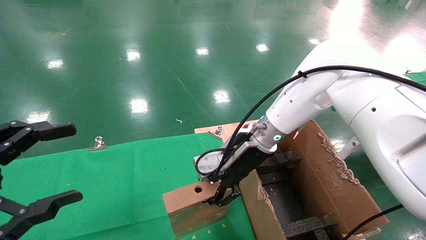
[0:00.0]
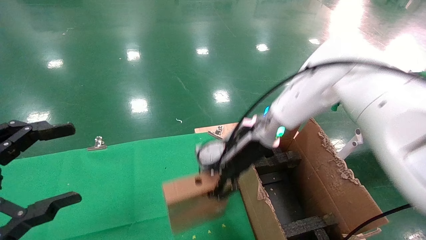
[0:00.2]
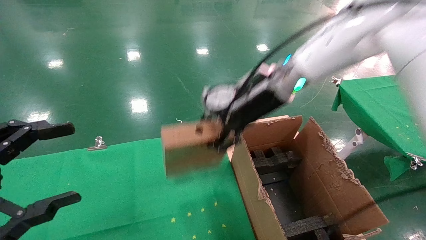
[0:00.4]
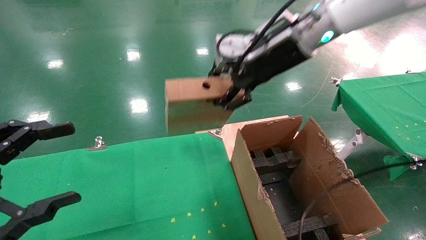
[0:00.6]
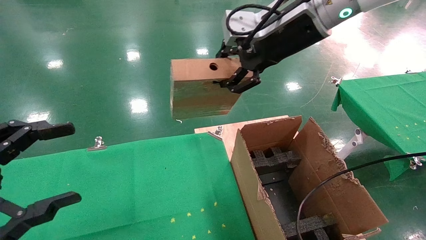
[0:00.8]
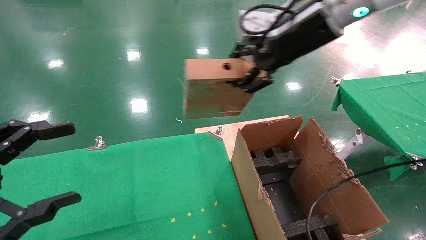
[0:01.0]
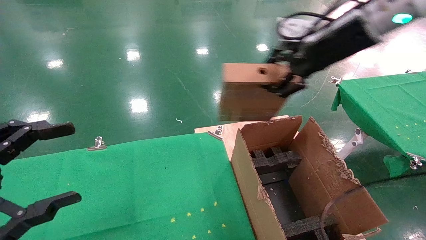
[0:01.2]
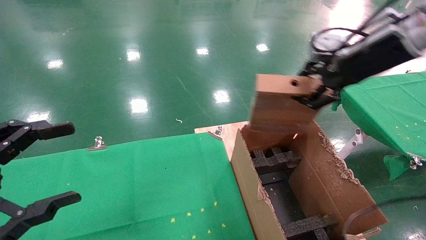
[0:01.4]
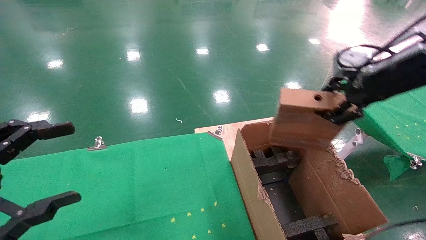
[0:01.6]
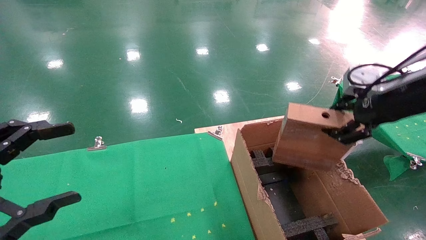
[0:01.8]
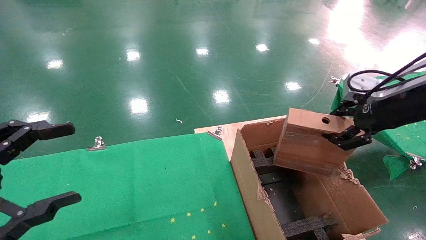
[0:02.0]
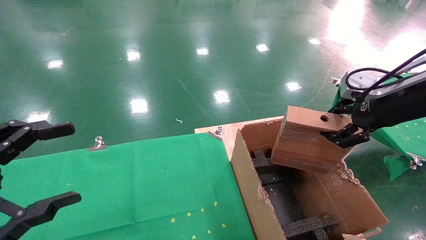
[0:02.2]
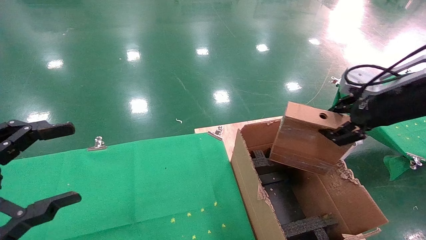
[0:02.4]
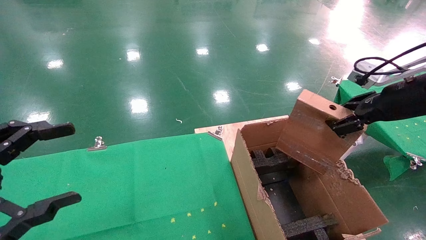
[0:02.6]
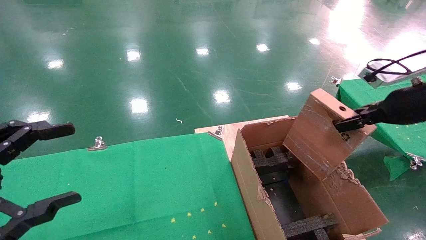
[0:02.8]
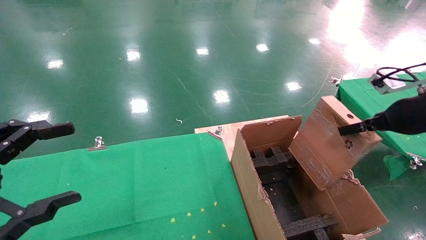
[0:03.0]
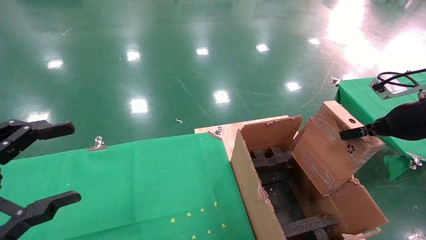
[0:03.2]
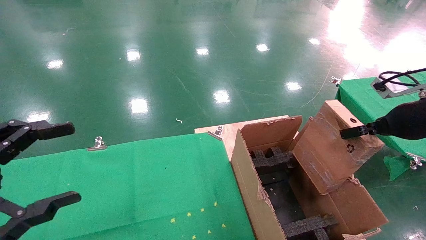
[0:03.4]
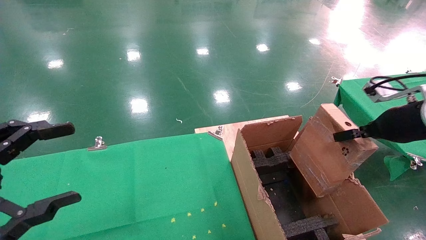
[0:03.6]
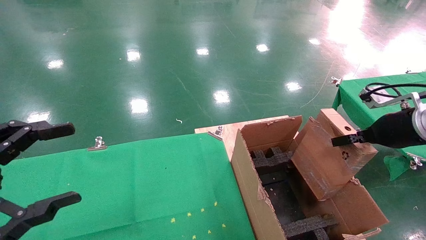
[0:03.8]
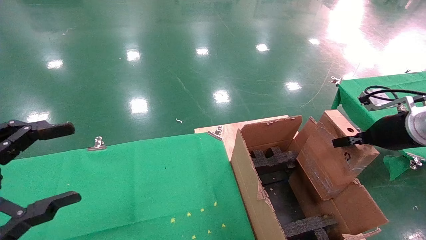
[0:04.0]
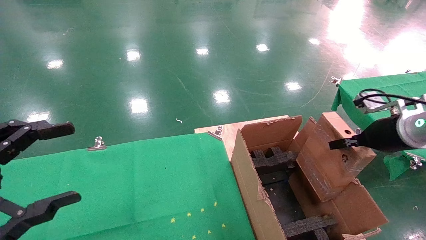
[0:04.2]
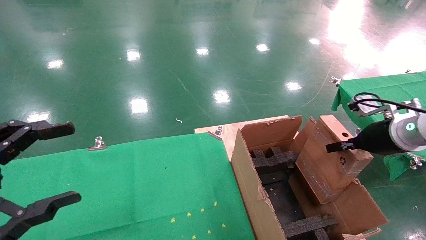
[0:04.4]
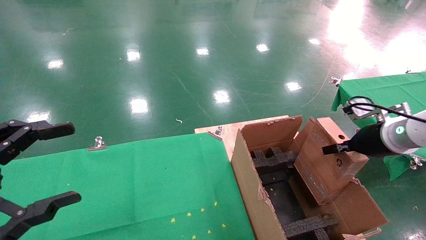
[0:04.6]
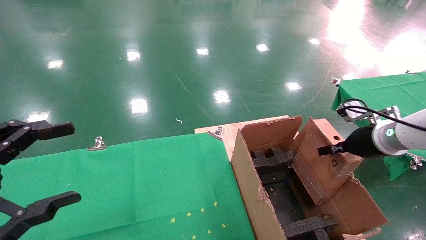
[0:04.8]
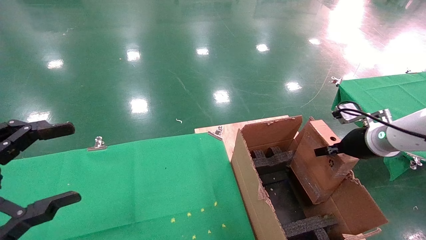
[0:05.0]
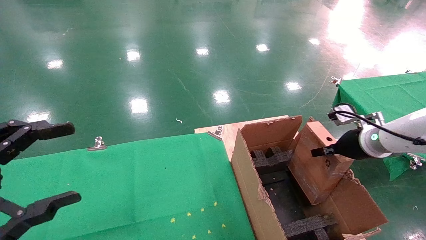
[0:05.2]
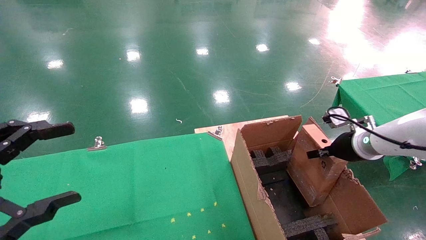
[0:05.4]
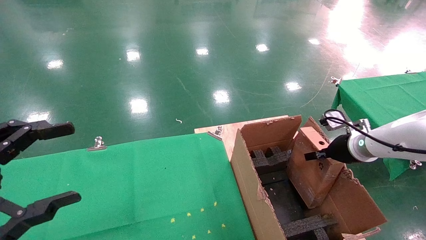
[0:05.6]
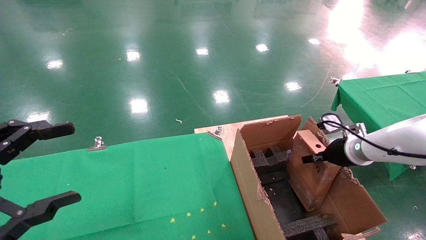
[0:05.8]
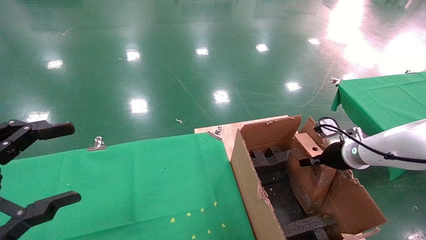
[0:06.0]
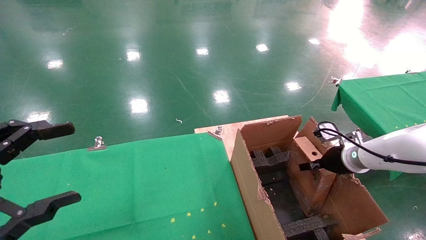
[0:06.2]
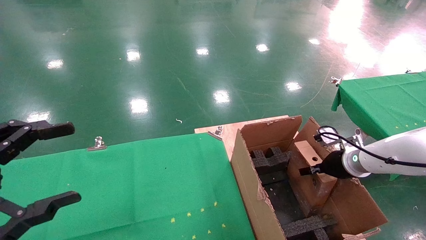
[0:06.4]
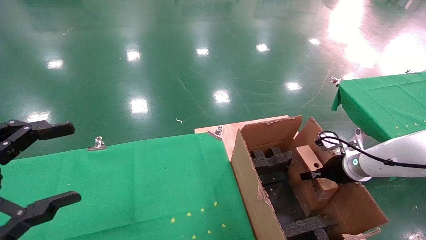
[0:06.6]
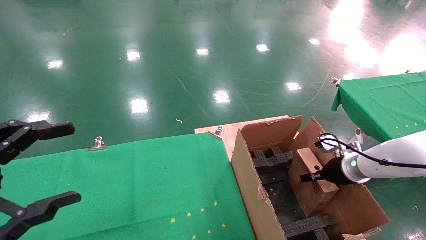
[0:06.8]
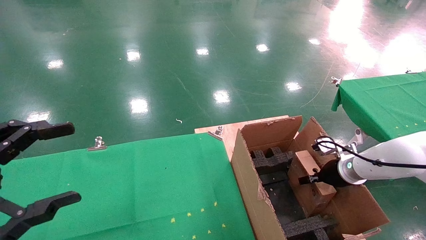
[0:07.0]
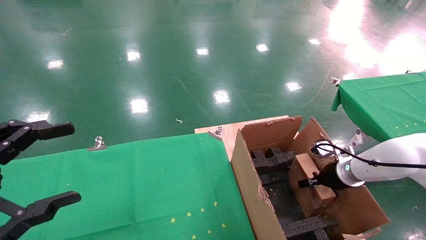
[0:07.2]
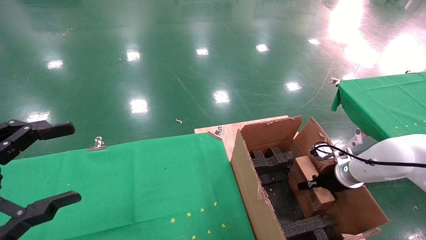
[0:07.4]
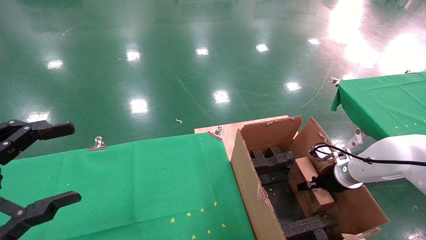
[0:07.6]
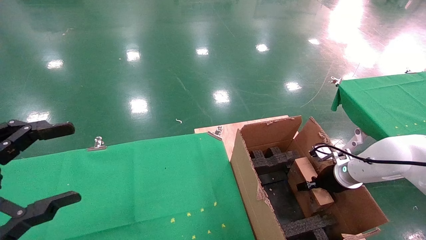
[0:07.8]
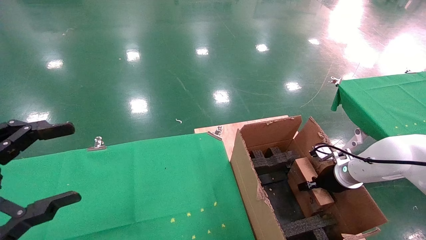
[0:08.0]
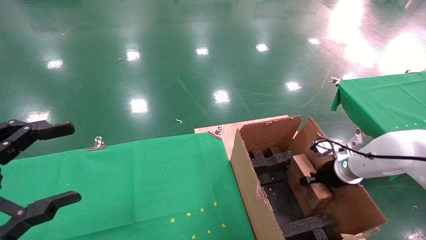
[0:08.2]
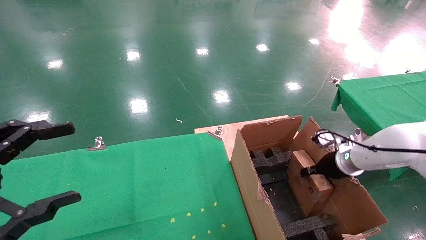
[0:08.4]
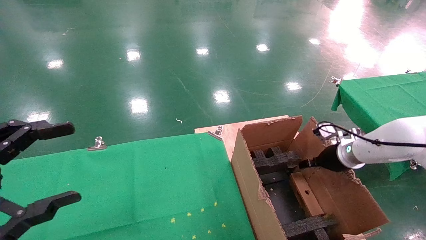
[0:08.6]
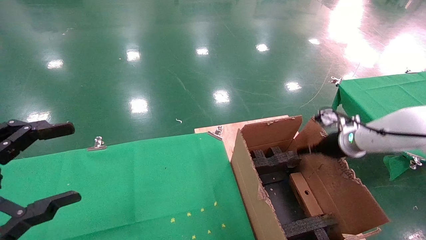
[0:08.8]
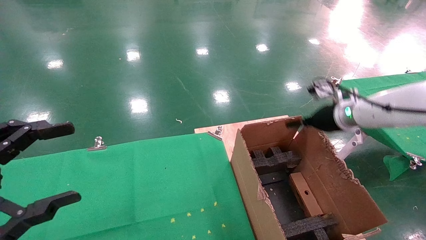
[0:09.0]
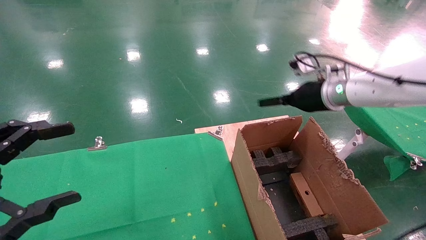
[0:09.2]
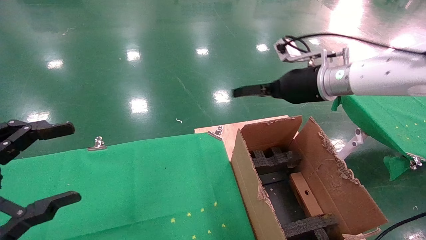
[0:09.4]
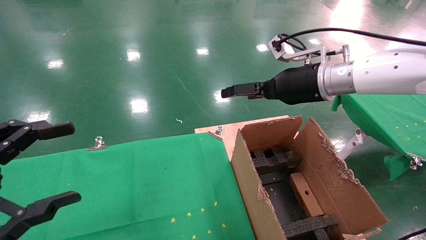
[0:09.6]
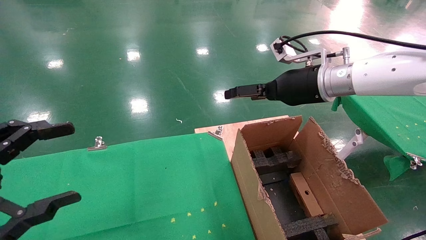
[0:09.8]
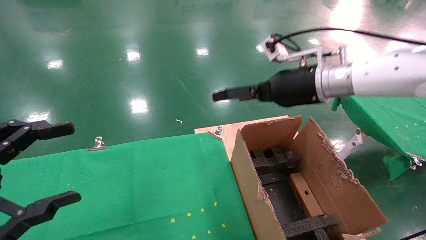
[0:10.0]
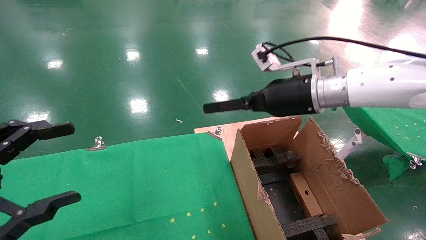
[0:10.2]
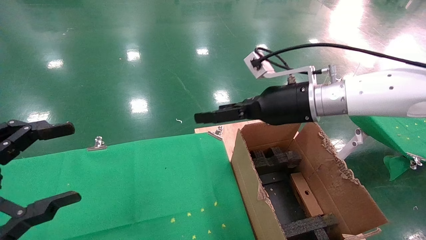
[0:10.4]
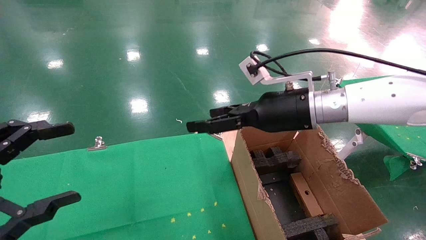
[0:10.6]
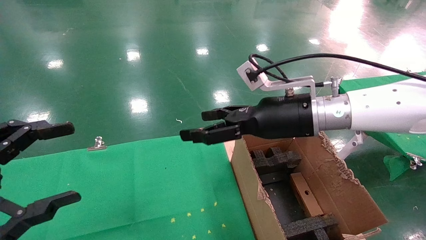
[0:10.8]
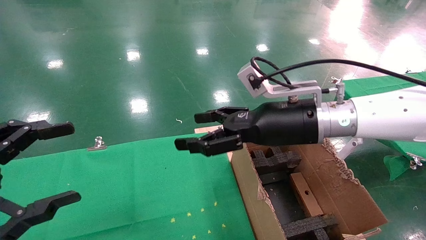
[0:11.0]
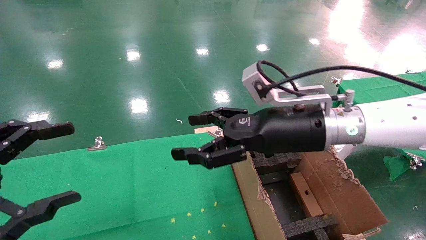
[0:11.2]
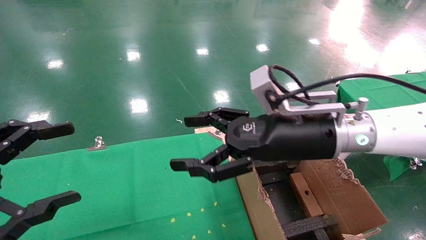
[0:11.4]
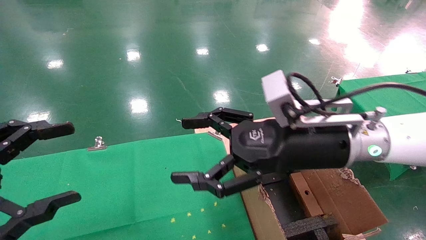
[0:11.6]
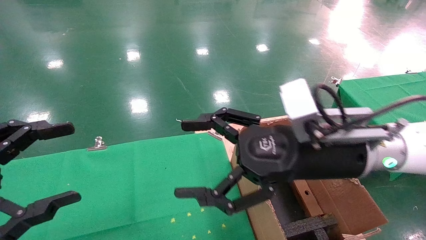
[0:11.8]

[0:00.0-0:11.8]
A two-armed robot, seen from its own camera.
Task of the whole recording: using a robotic arm to pick up a cardboard box and palace it the carton.
Step, 0:00.0 to 0:09.0: Place the mouse and the power cord paper box into the container.
0:00.0 to 0:01.4: The right gripper moves to the right and upward, approximately 25 cm.
0:01.4 to 0:03.0: The right gripper shifts about 15 cm downward and to the right.
0:03.0 to 0:04.4: The right gripper goes roughly 5 cm downward.
0:04.4 to 0:06.0: The right gripper moves downward and forward, about 10 cm.
0:06.0 to 0:07.4: The right gripper heads downward, covering some 5 cm.
0:07.4 to 0:08.8: The right gripper travels upward by roughly 10 cm, and opens up.
0:08.8 to 0:10.4: The right gripper moves to the left and upward, some 20 cm, and opens.
0:10.4 to 0:11.8: The right gripper travels backward by roughly 10 cm.
